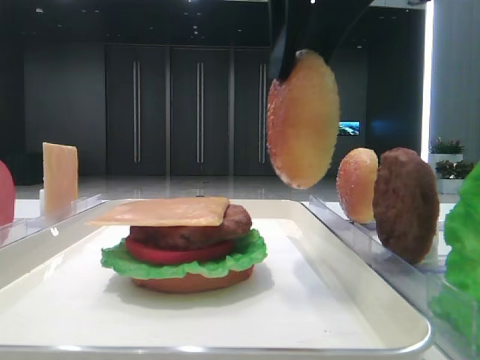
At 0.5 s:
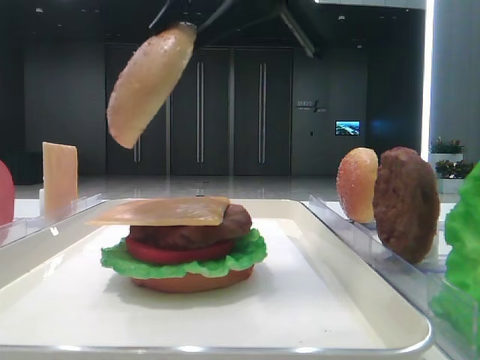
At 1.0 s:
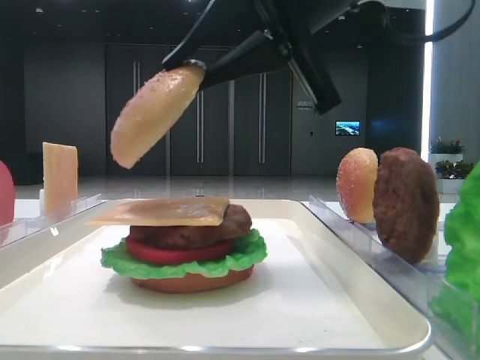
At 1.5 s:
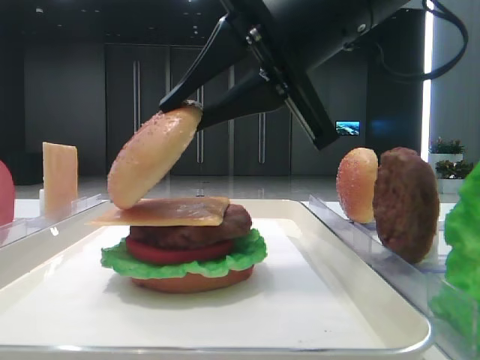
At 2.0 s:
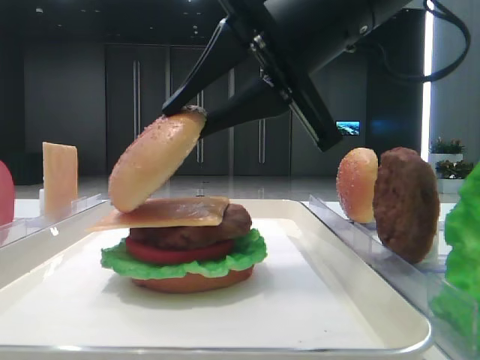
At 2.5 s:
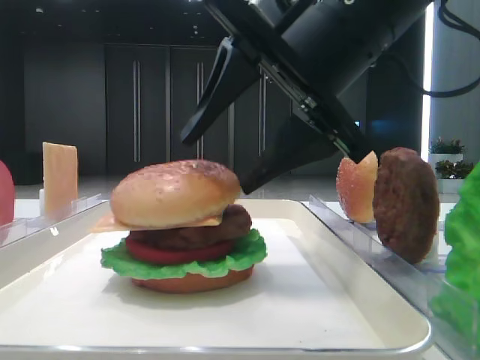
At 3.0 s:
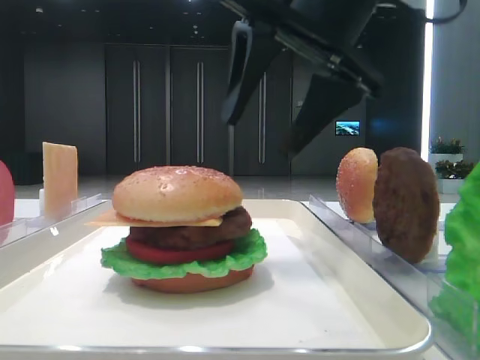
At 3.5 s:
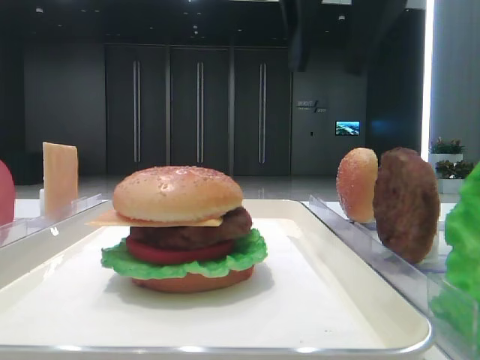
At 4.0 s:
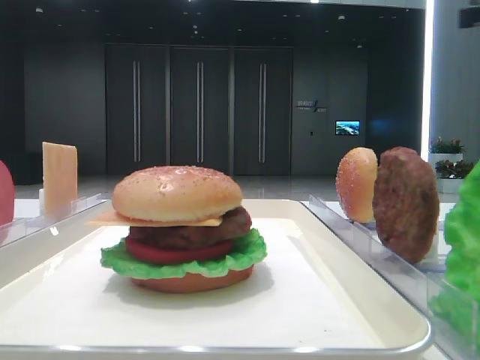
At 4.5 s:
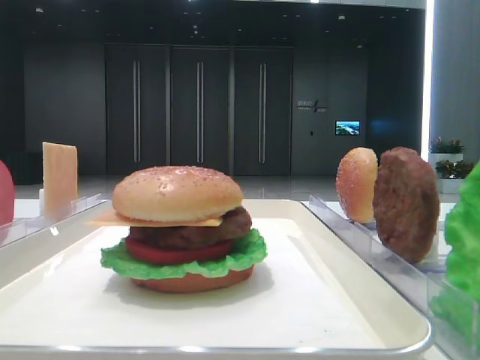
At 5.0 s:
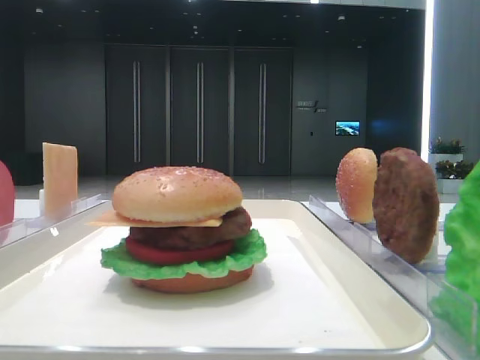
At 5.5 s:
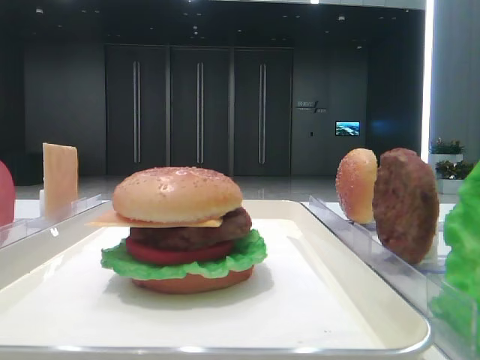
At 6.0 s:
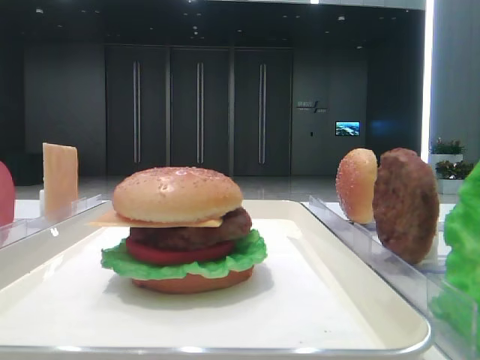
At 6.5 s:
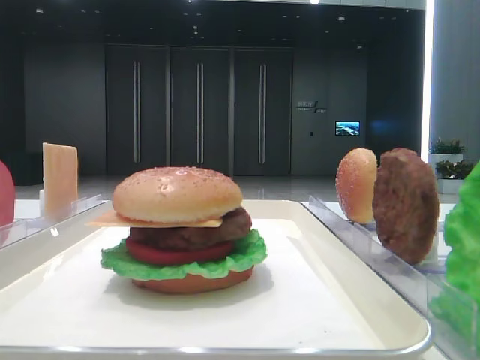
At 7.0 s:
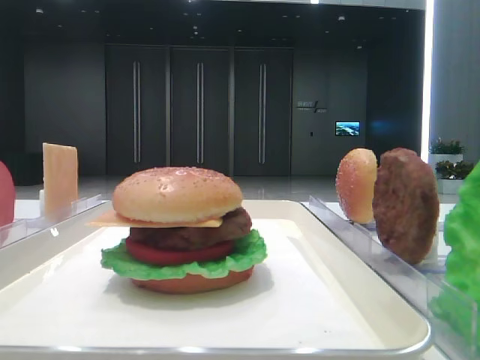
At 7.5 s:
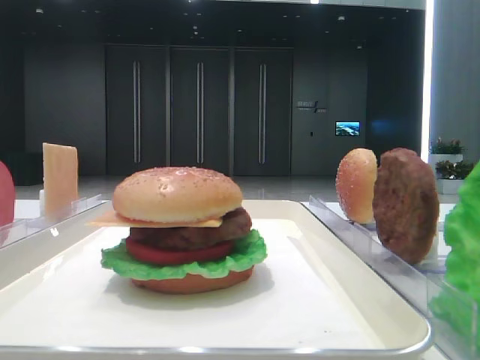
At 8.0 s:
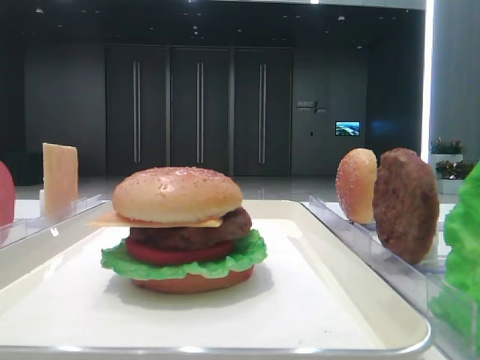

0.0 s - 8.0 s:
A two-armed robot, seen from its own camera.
Step, 0.0 s - 2.5 s: Place the top bread slice on the cheese with the right hand.
0.0 s - 2.0 s: The right gripper moves downward, approximately 10 cm.
2.0 s - 4.0 s: The right gripper moves to the right and forward, about 25 cm, and opens its fingers.
4.0 s - 6.0 s: The right gripper goes some 40 cm backward.
6.0 s - 8.0 s: Both grippers stay about where they are.

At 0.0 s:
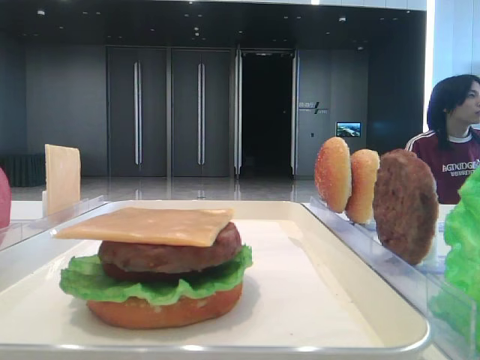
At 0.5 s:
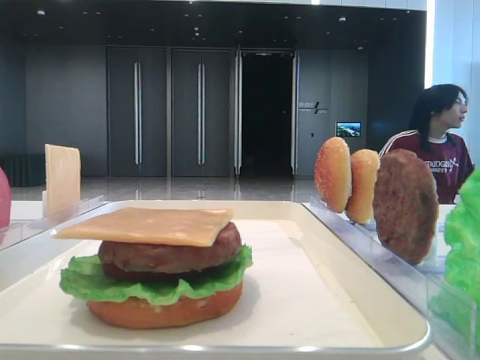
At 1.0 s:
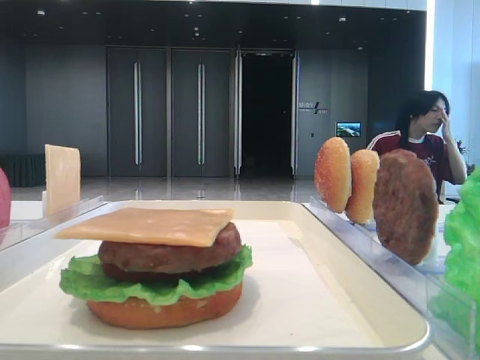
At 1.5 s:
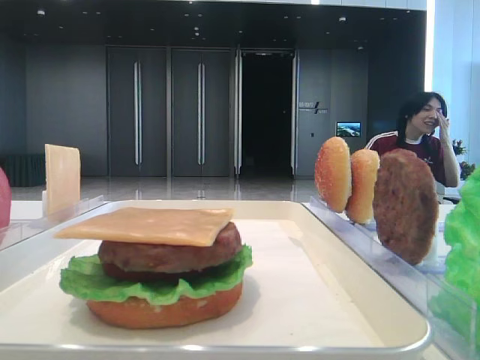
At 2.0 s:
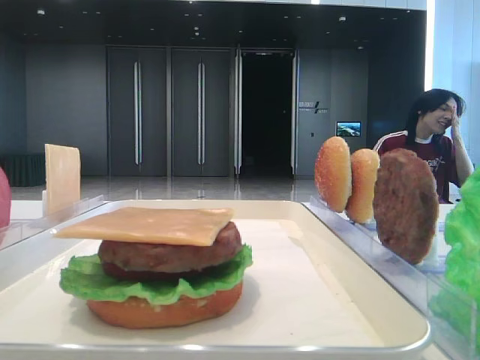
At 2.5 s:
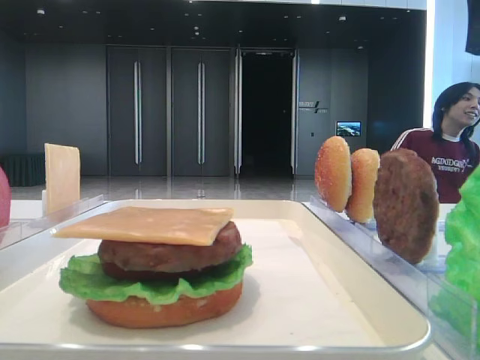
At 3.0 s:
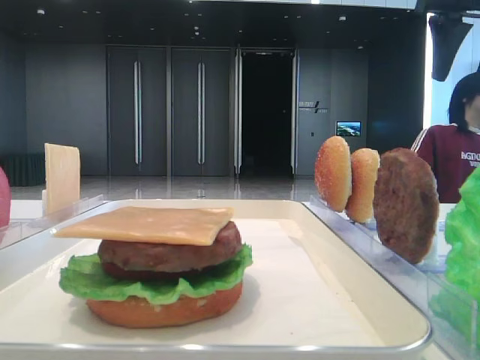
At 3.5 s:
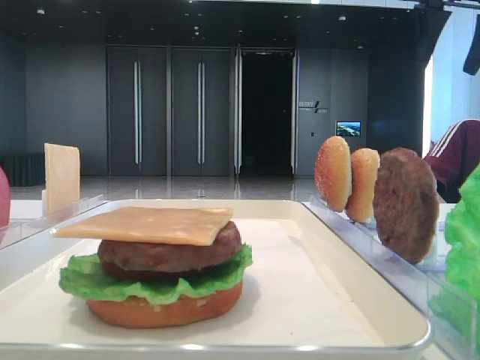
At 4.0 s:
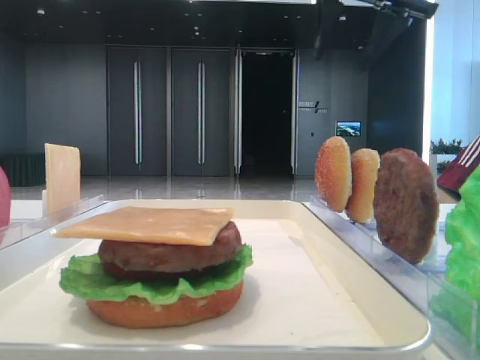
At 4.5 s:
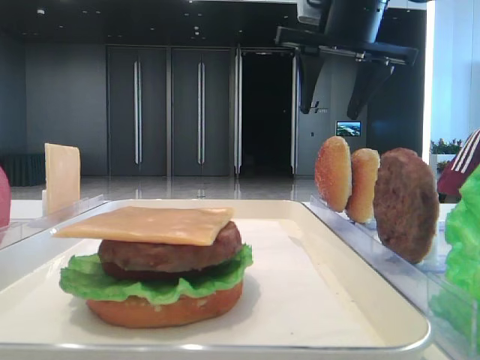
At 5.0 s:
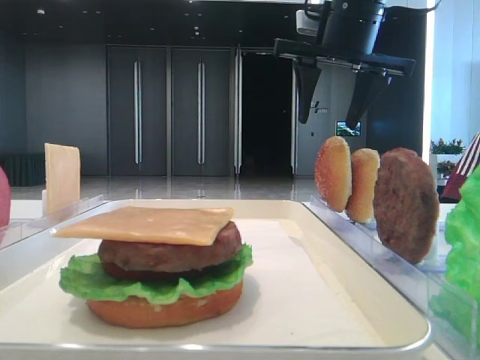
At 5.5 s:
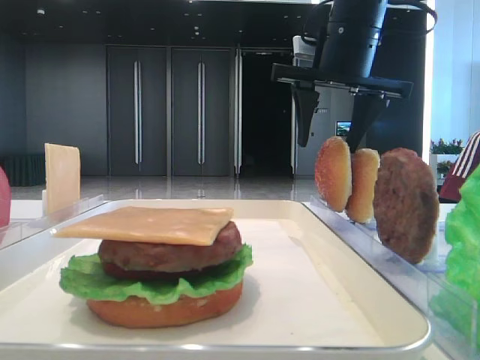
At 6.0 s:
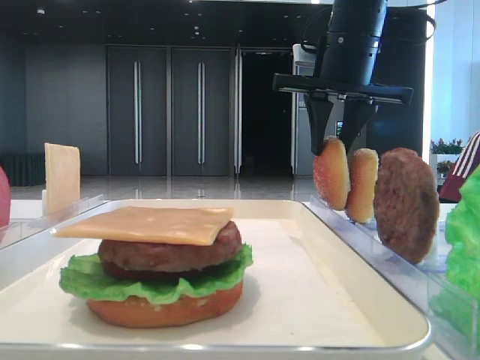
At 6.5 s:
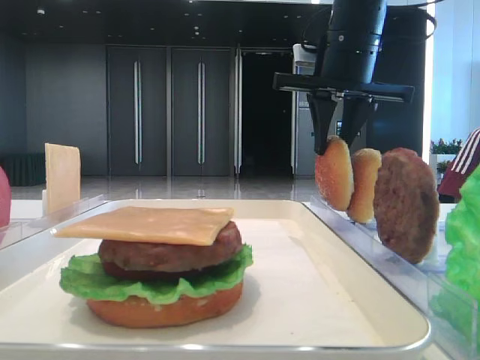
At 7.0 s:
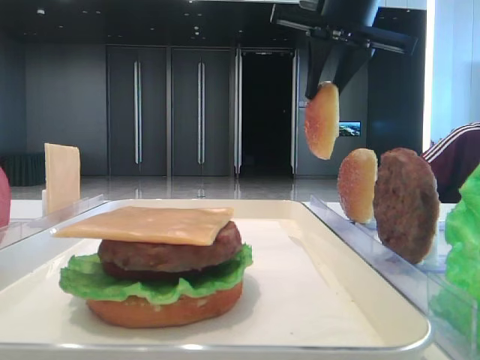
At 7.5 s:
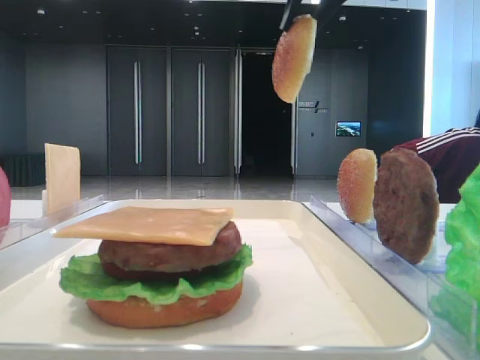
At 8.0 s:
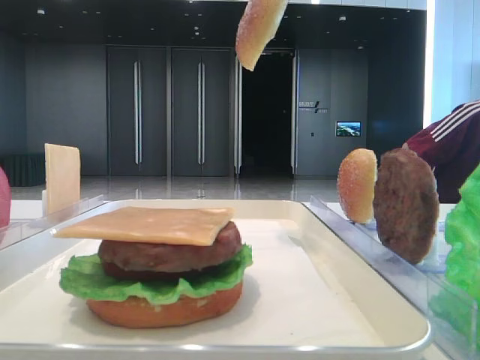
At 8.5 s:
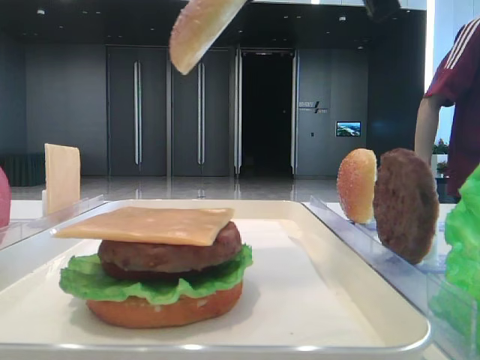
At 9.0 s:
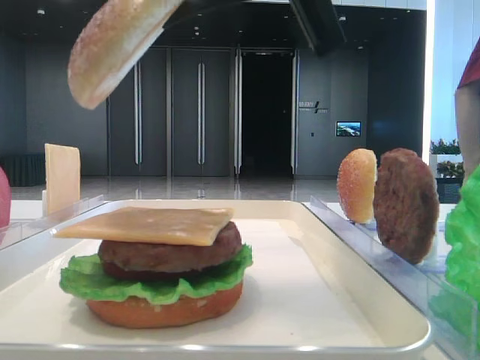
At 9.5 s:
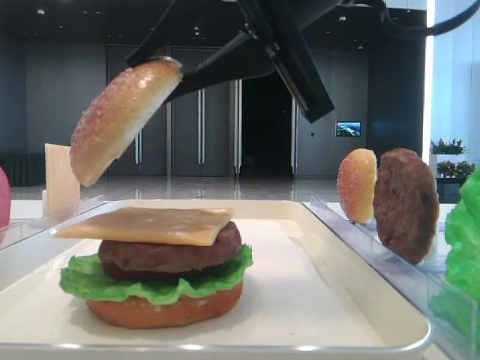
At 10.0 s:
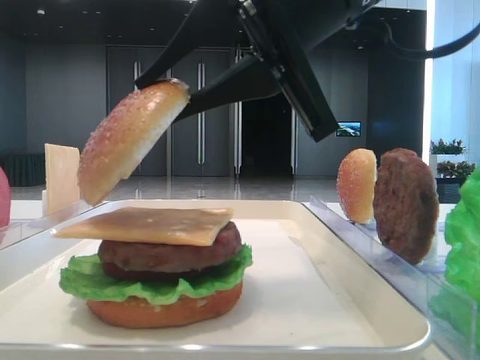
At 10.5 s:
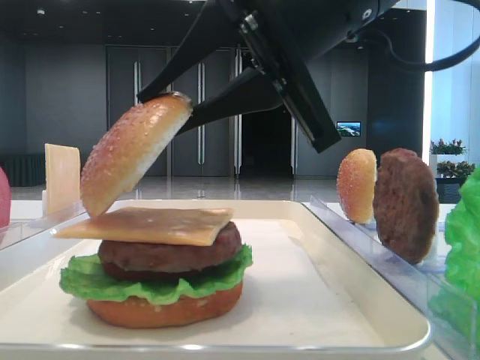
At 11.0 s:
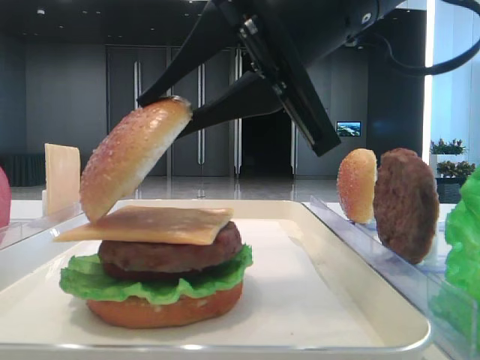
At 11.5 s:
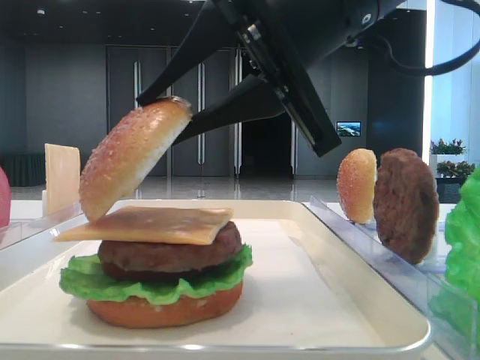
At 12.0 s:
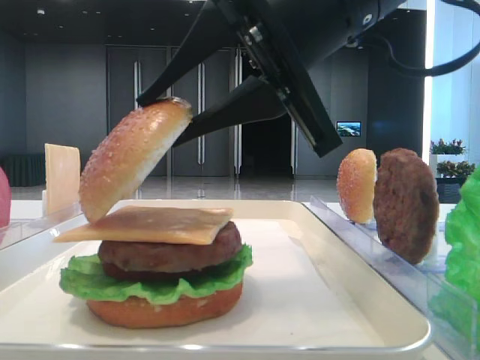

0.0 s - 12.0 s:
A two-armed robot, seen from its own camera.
Step, 0.0 s - 6.0 s: Pick up the top bread slice with the right hand.
2.0 s - 4.0 s: The right gripper moves forward and to the left, some 20 cm.
4.0 s - 6.0 s: The right gripper goes about 10 cm downward, and closes up.
6.0 s - 8.0 s: The right gripper heads upward and backward, covering some 15 cm.
8.0 s - 10.0 s: The right gripper goes some 15 cm downward and backward.
10.0 s - 12.0 s: Both grippers stay put.

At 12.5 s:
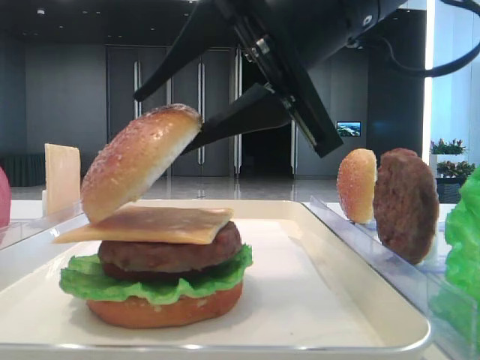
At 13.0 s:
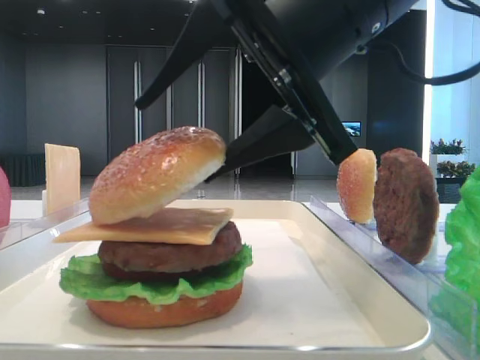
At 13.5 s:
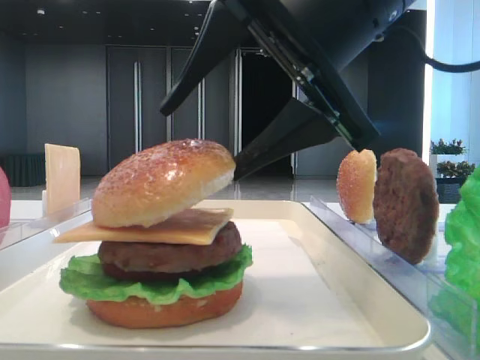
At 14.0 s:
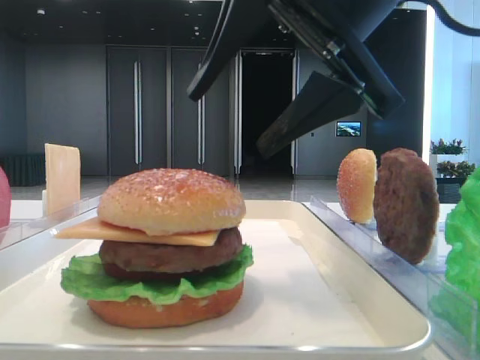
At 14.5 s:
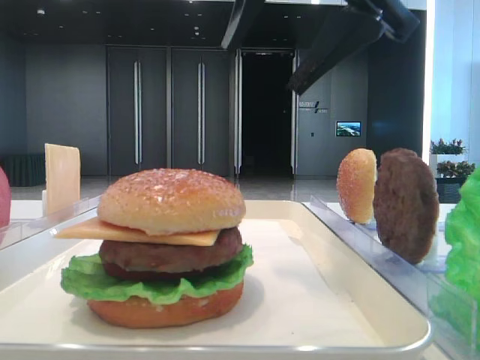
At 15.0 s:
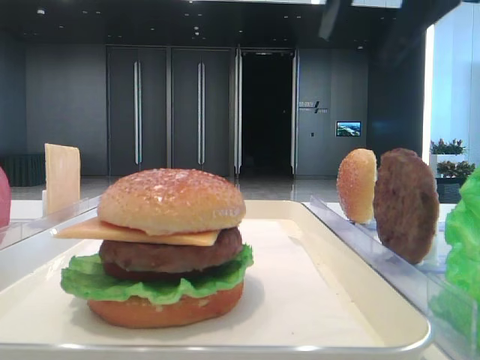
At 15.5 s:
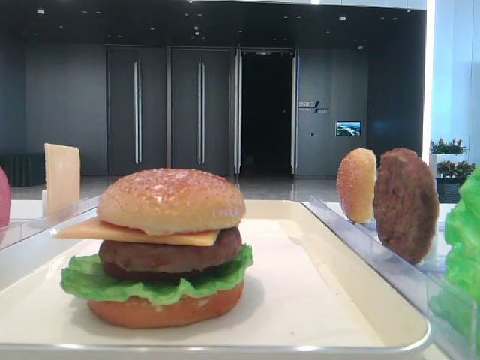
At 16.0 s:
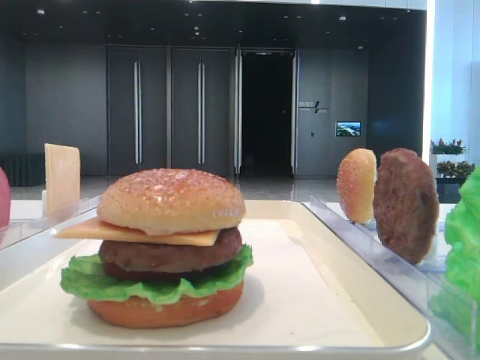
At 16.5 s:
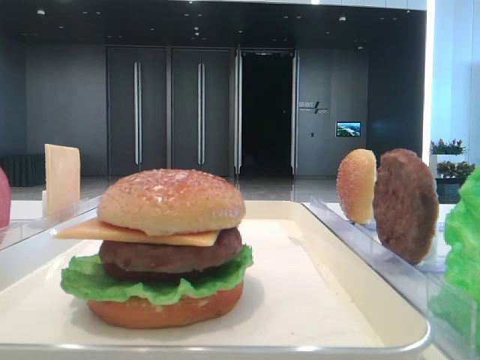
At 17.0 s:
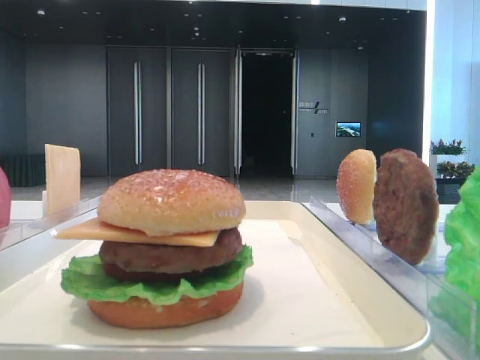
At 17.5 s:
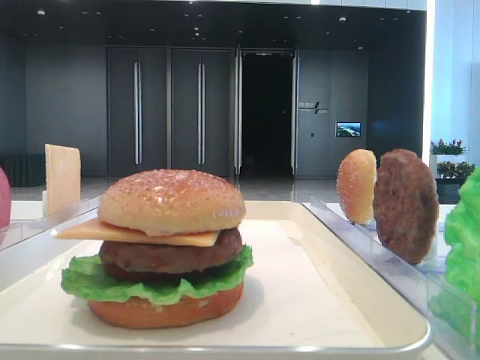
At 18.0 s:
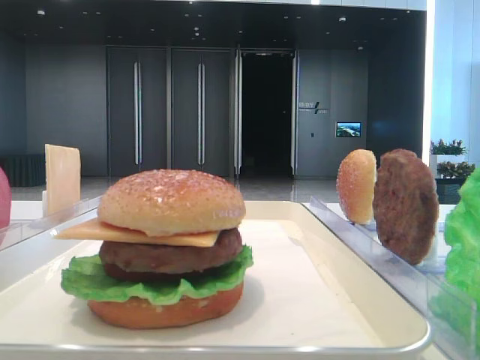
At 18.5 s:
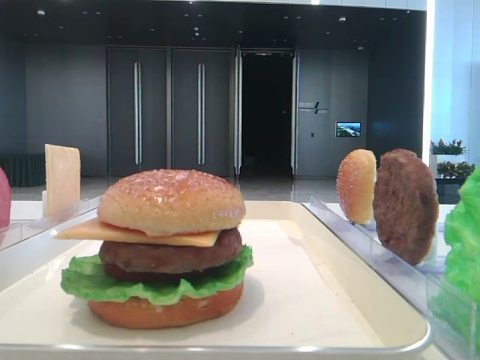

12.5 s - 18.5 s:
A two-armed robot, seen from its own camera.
12.5 s - 14.5 s: The right gripper goes approximately 5 cm upward, and opens.
14.5 s - 16.5 s: The right gripper shifts approximately 25 cm to the right and backward.
